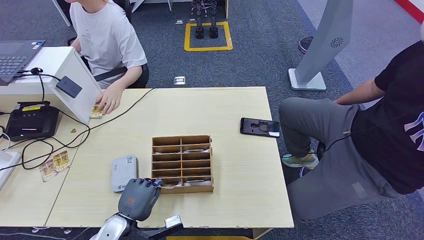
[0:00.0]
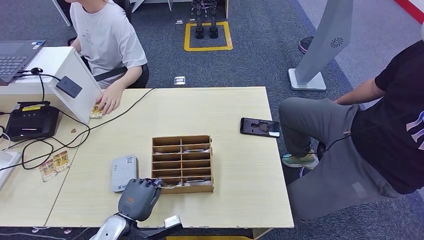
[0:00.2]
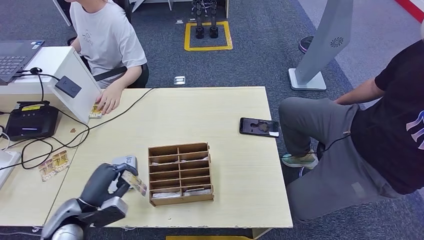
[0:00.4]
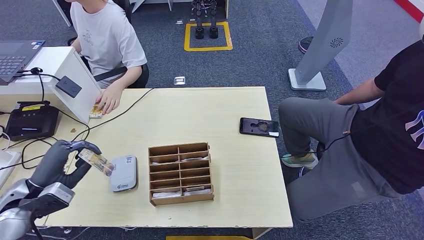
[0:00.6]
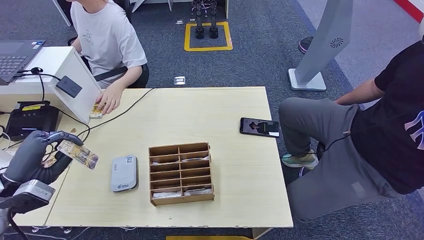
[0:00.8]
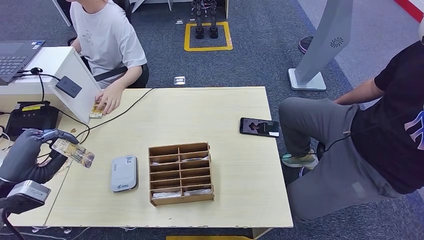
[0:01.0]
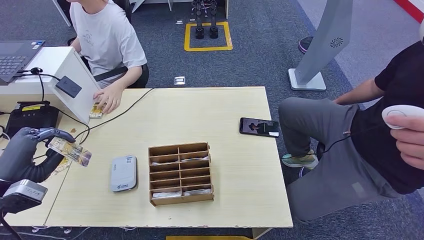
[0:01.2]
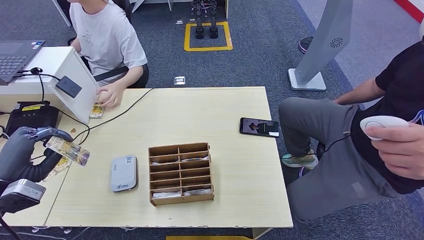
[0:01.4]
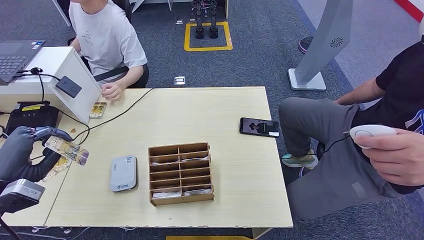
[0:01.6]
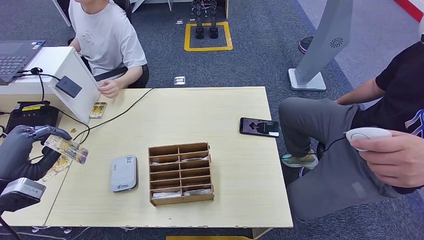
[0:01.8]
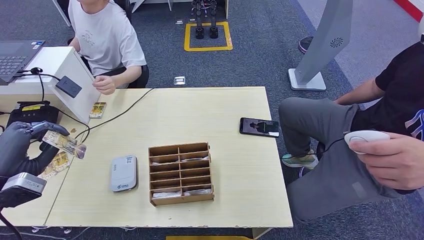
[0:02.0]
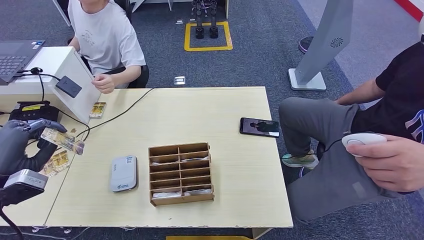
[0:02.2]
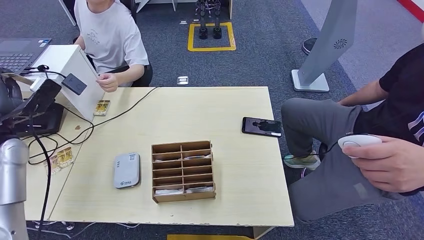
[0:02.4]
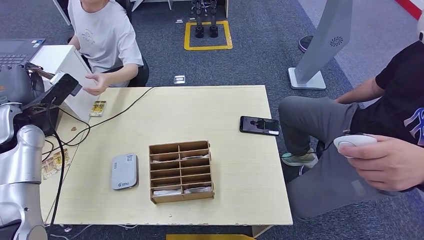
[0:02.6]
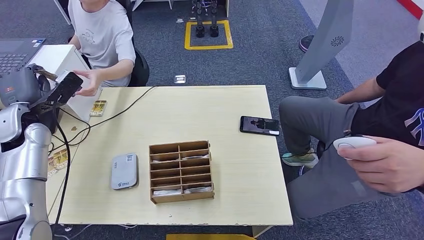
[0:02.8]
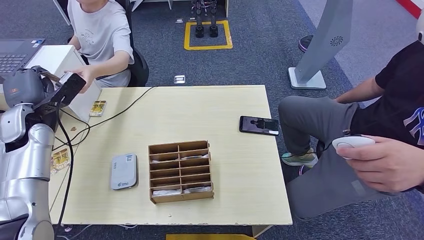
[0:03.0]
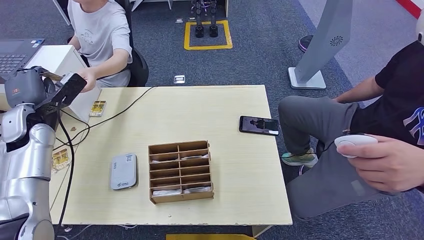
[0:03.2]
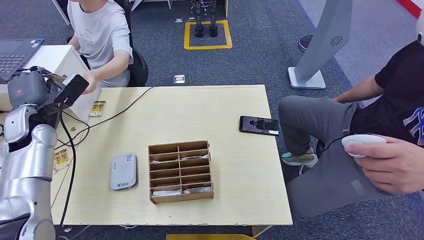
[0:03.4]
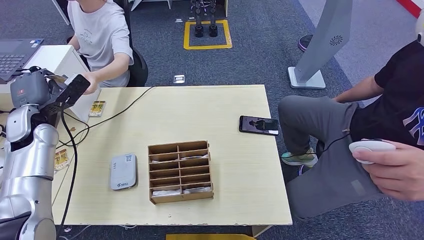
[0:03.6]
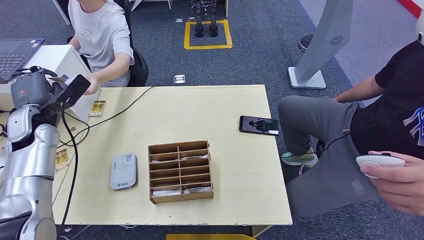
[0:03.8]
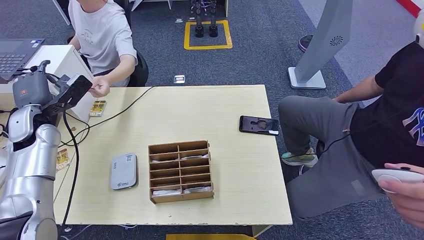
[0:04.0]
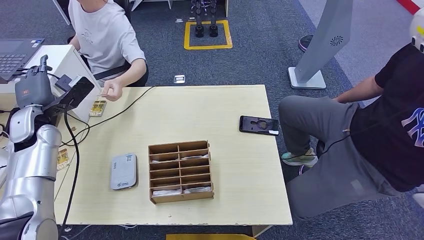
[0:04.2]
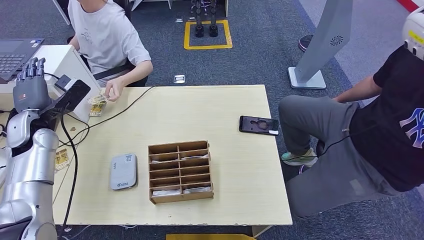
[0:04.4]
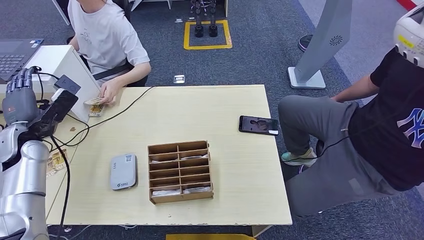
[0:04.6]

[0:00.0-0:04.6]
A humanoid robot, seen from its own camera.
Step, 0:00.0 to 0:02.0: Pick up the room key from the key card box.
Step, 0:02.4 to 0:04.6: Hand the room key to the person.
0:00.0 to 0:01.6: The left hand is displaced to the left and upward by about 25 cm.
0:03.0 to 0:04.6: The left hand ends up roughly 5 cm from where it was.
